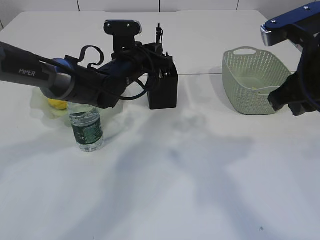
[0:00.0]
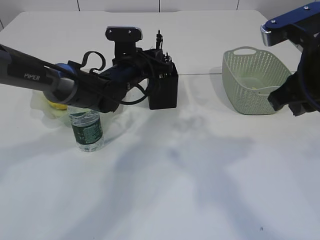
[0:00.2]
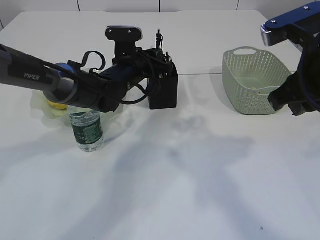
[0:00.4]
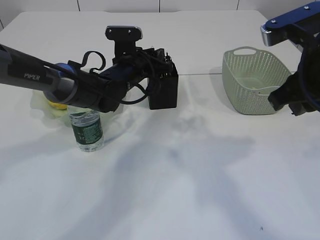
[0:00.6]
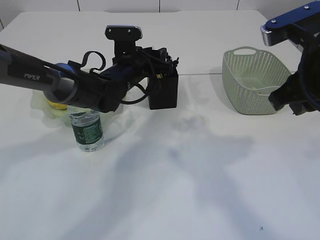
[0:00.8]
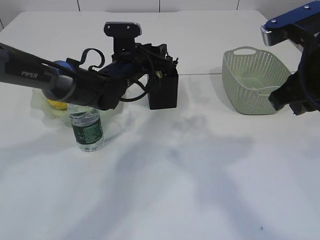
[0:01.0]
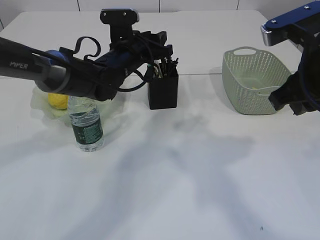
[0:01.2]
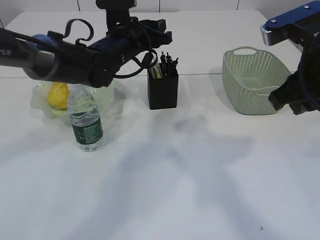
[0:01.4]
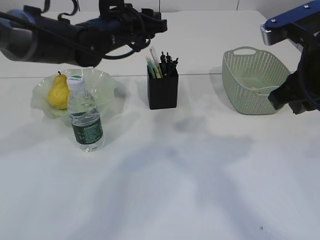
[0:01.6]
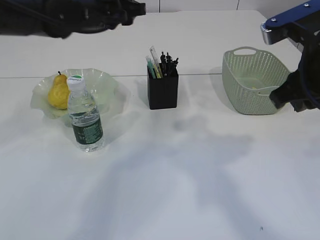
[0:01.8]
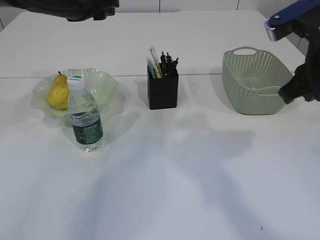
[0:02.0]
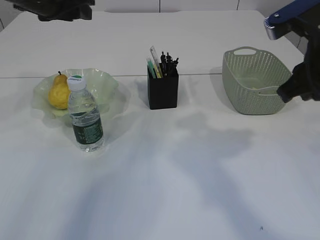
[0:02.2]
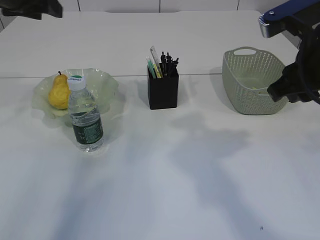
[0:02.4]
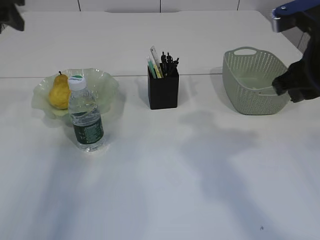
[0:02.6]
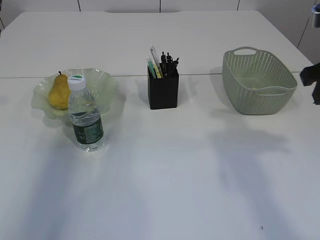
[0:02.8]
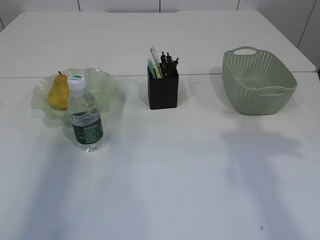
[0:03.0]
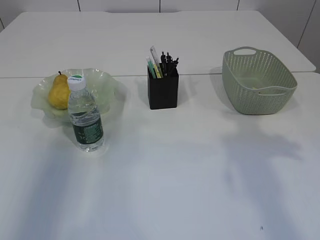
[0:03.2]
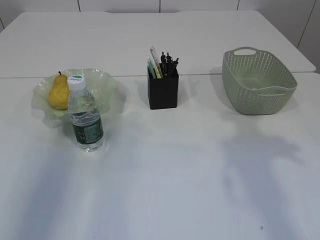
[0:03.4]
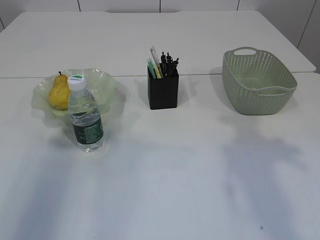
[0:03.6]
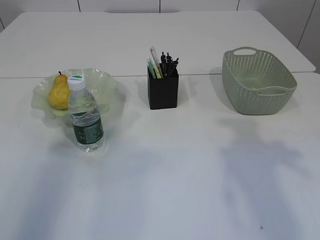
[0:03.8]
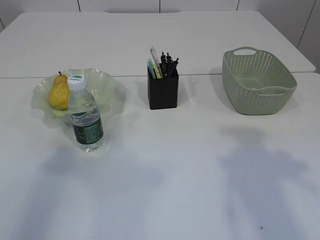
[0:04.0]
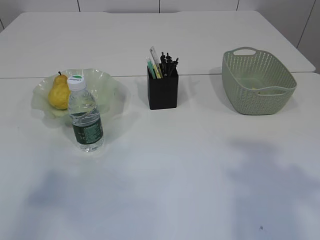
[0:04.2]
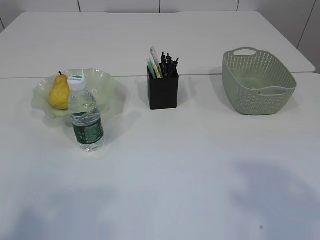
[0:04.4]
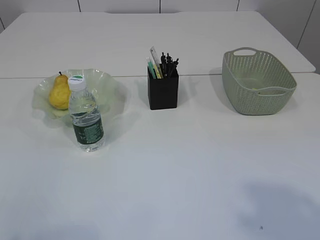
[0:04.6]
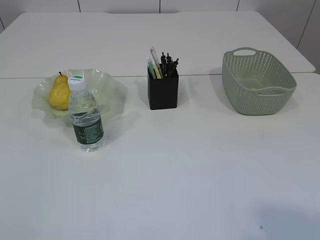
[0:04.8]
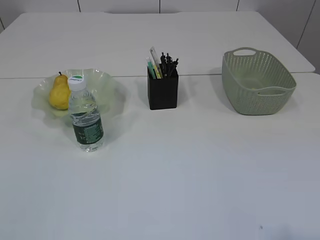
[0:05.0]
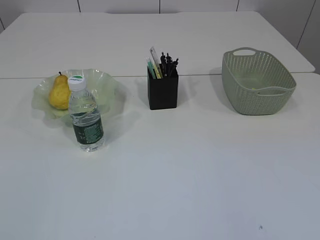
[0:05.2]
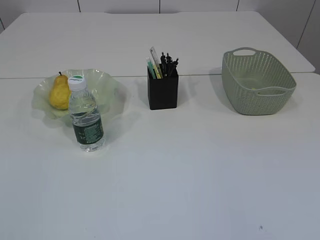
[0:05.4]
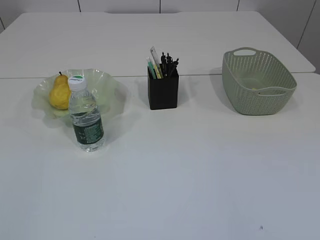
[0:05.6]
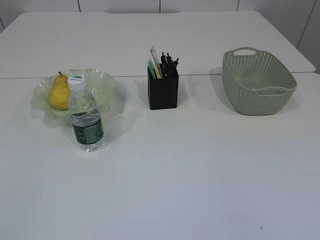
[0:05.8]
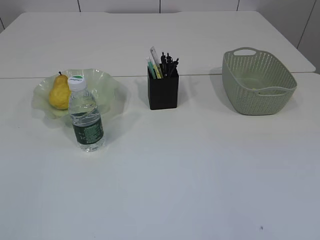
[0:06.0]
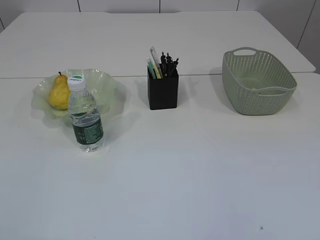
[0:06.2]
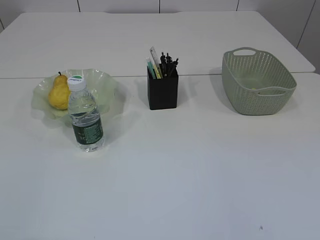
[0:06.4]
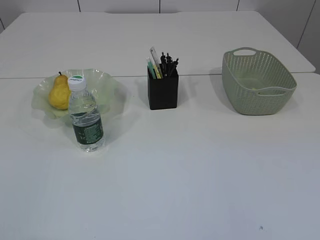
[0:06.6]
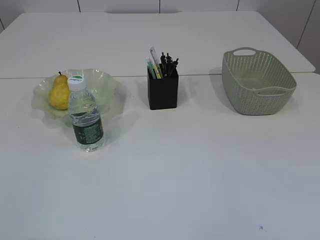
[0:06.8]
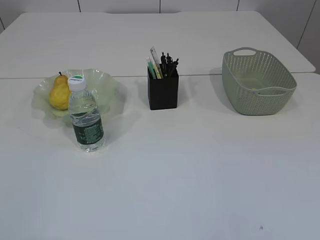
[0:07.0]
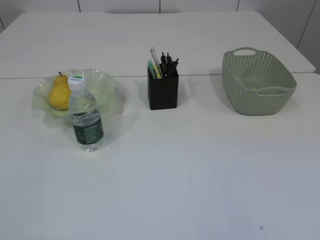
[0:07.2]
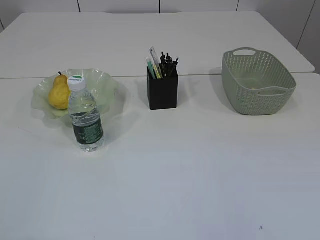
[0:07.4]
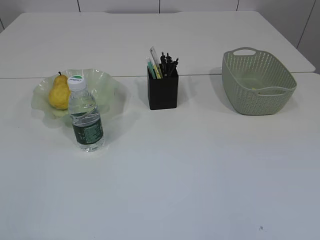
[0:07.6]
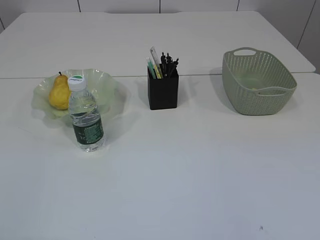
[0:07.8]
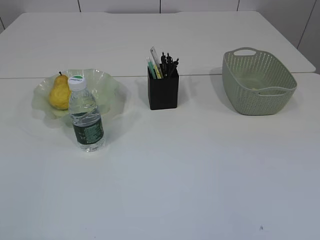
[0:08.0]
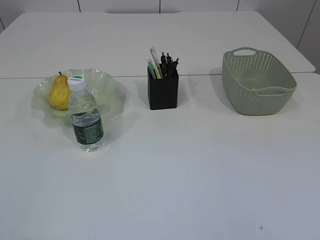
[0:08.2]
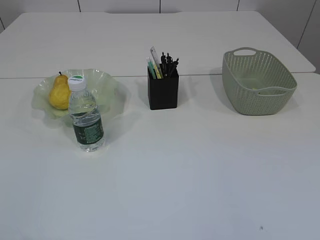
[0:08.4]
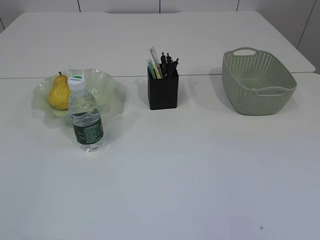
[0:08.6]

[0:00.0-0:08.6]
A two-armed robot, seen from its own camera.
0.0 to 1.4 s: The left gripper shifts some 5 cm upward, and opens up.
1.4 to 2.8 s: The left gripper goes about 30 cm to the left and upward; the right gripper is displaced to the right by roughly 5 cm.
2.8 to 4.4 s: The right gripper heads backward and upward, covering about 25 cm, and opens up, while the left gripper moves backward, about 35 cm.
4.4 to 5.8 s: The left gripper heads downward and backward, covering about 10 cm.
7.2 to 8.6 s: Neither gripper changes place.

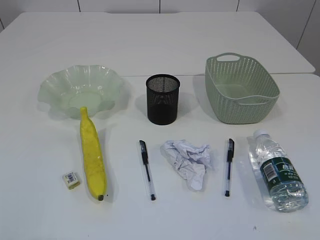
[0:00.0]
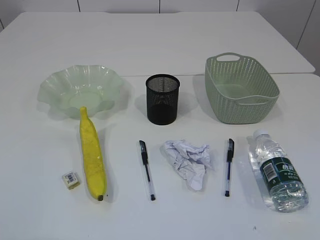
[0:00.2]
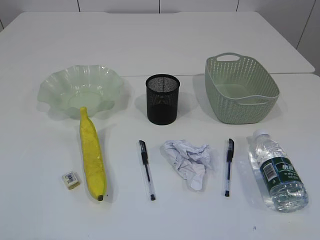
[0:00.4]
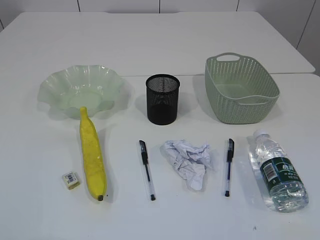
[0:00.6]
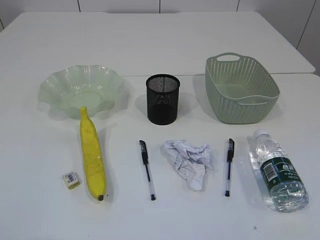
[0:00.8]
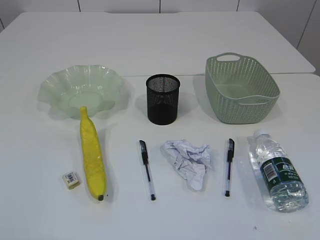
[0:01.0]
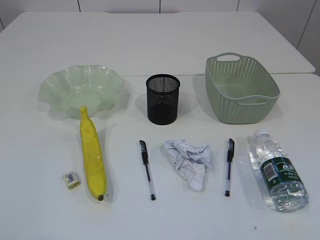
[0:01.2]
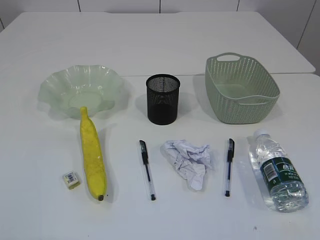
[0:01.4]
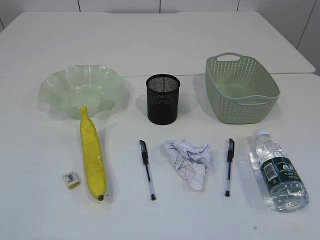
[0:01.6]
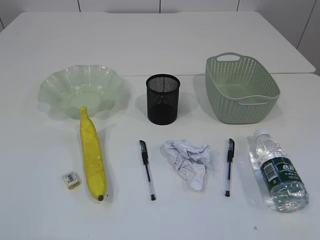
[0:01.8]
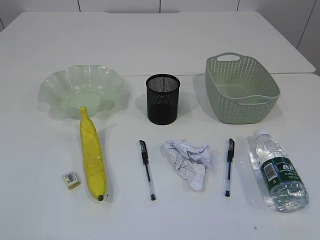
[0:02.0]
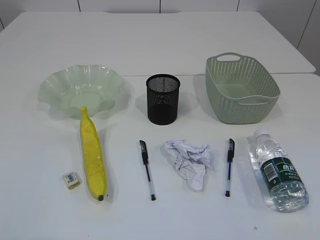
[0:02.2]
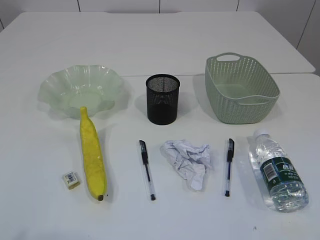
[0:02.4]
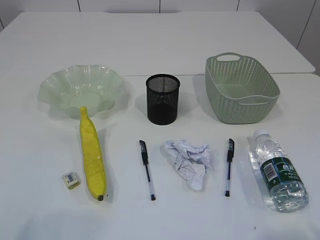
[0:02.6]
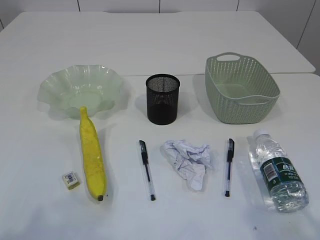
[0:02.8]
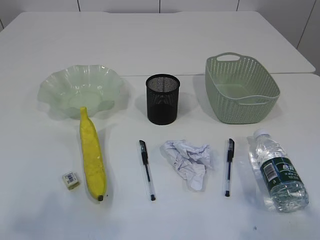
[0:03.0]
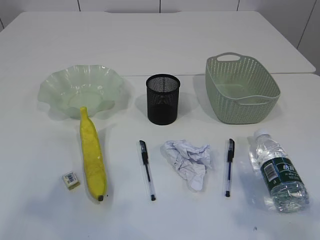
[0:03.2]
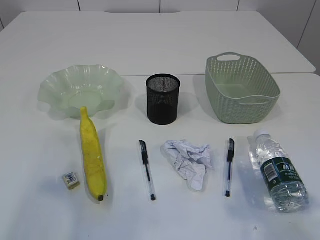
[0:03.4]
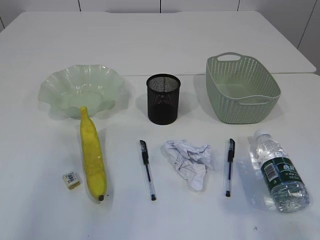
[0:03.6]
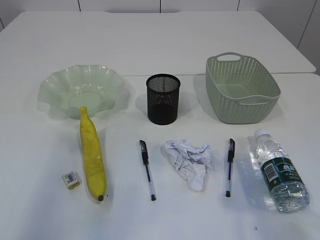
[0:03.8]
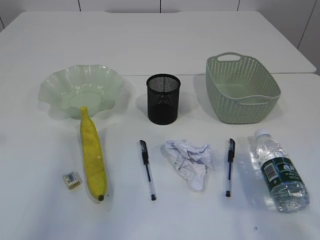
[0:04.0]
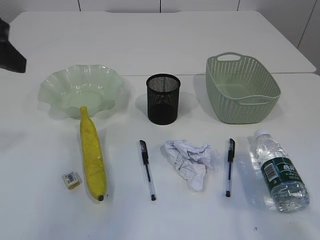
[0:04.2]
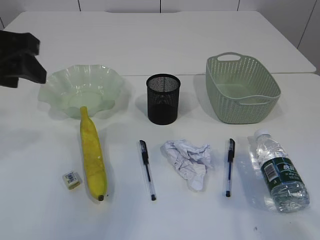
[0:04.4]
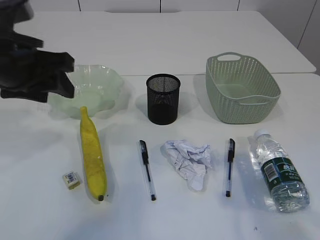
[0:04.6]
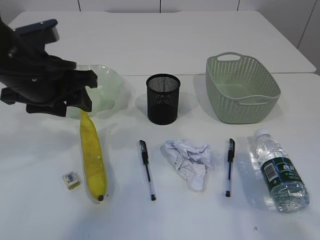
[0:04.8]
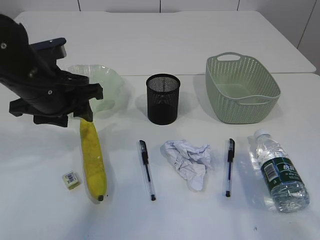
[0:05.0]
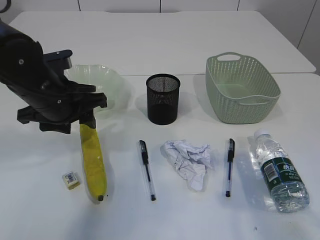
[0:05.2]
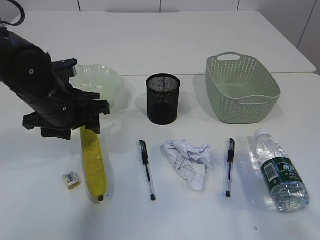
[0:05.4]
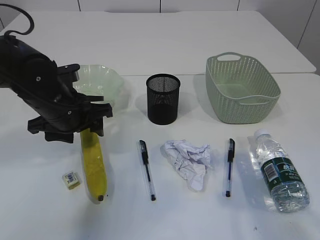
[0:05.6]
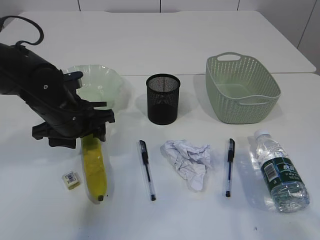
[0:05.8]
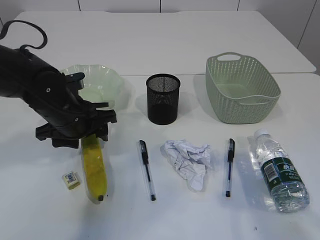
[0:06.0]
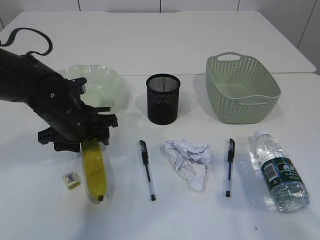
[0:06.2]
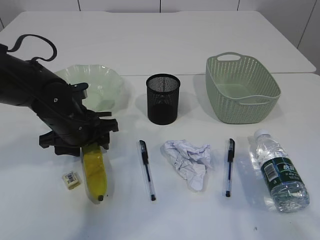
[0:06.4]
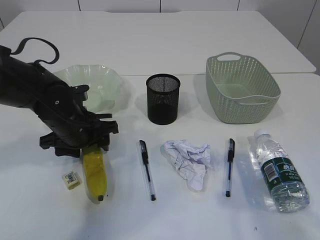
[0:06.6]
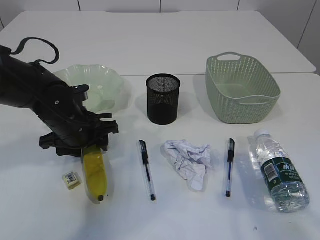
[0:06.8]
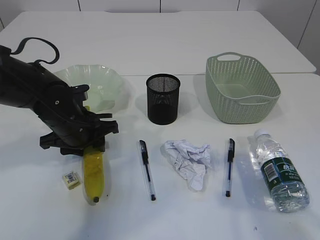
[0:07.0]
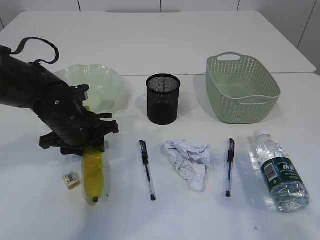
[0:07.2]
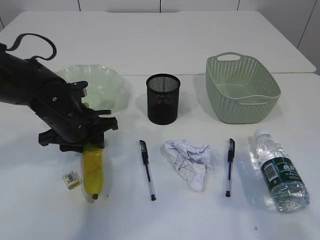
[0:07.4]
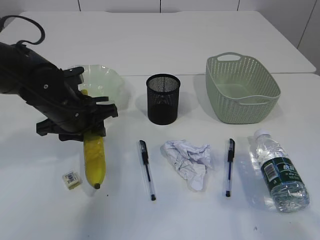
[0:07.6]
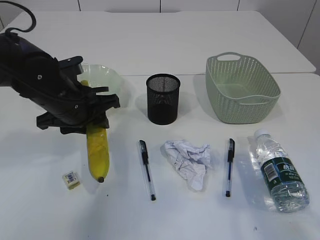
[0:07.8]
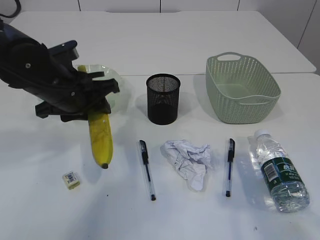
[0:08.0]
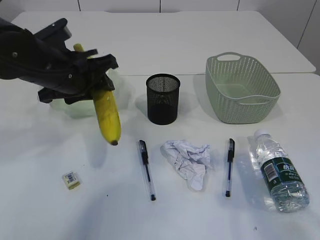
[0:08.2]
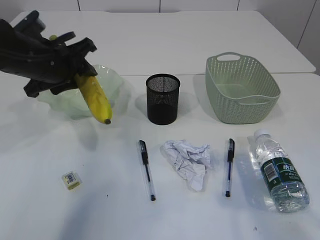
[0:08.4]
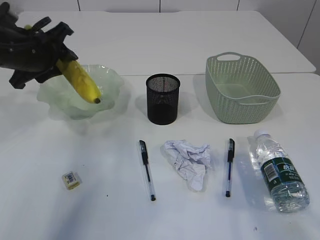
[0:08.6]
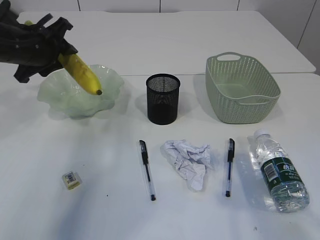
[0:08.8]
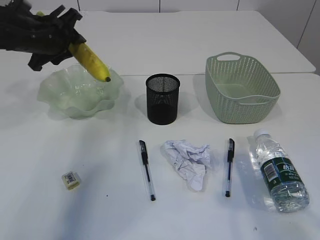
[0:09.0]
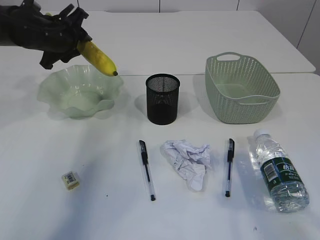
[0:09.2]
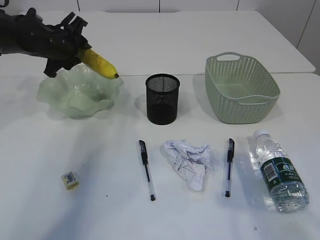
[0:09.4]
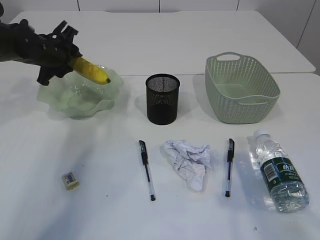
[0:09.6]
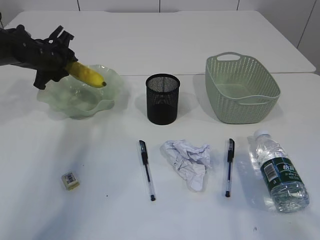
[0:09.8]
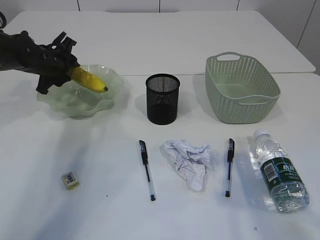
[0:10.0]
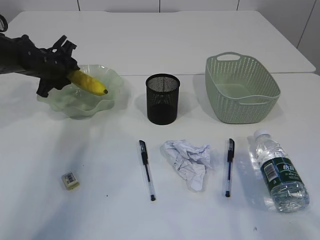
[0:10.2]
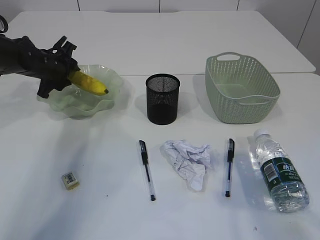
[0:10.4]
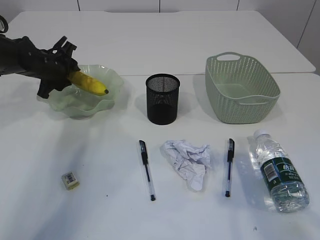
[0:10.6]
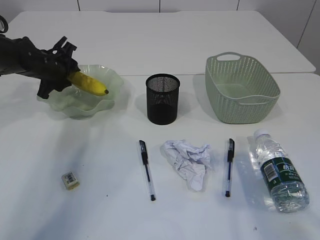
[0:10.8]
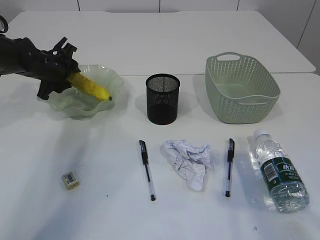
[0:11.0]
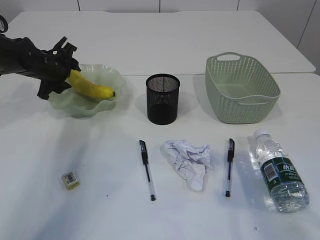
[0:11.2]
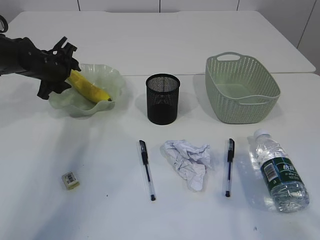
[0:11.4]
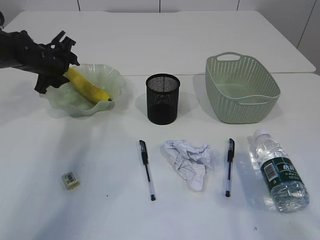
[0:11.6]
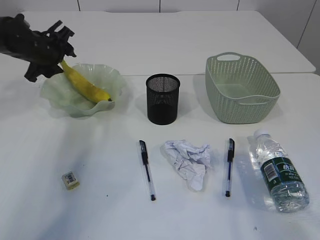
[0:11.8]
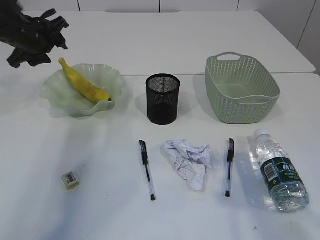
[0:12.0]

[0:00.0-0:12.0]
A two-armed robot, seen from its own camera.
Step, 8.0 to 11.8 s: Place the banana in the plate.
1.6 to 3.0 s: The left gripper goes roughly 10 cm forward and upward; the right gripper moves forward, approximately 10 cm.
3.0 to 4.4 s: The right gripper moves forward, some 5 cm. The left gripper goes approximately 25 cm forward and to the right.
4.4 to 6.0 s: The left gripper heads downward, forward and to the right, covering about 20 cm.
6.0 to 7.6 s: The left gripper closes.
7.6 to 9.0 s: The left gripper moves forward, upward and to the left, approximately 15 cm.
9.0 to 10.4 s: The left gripper goes roughly 10 cm downward and forward.
10.4 to 12.0 s: The left gripper shifts roughly 10 cm upward.

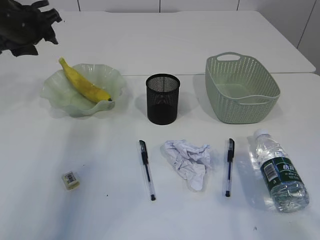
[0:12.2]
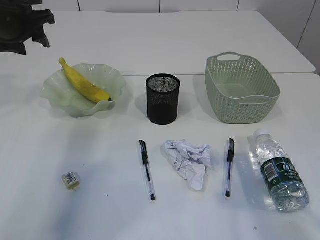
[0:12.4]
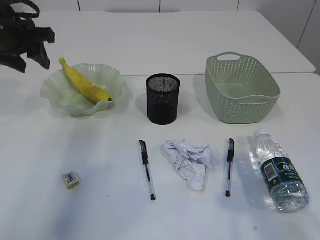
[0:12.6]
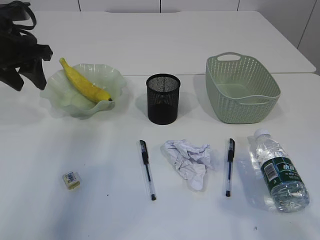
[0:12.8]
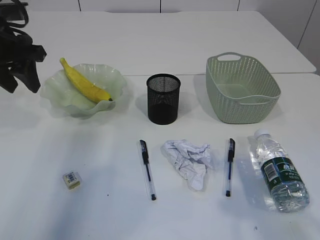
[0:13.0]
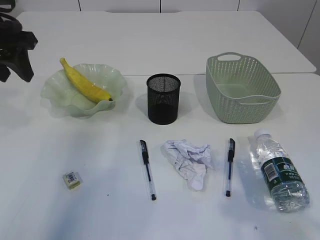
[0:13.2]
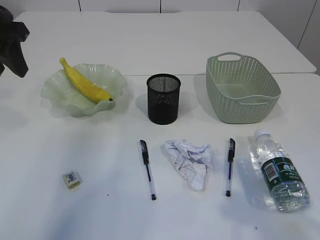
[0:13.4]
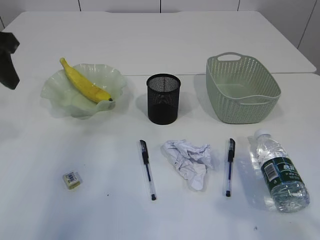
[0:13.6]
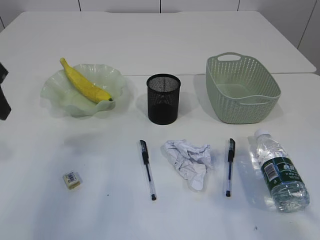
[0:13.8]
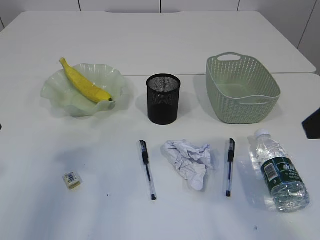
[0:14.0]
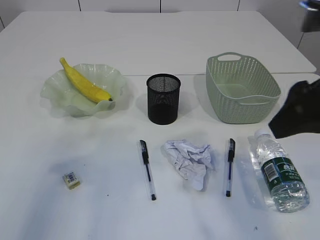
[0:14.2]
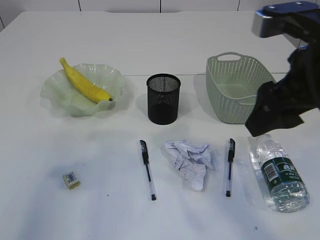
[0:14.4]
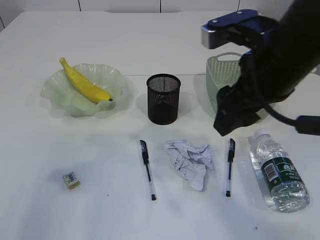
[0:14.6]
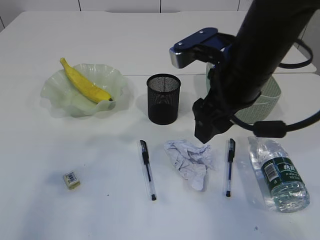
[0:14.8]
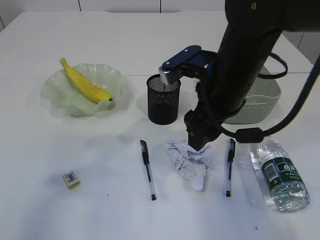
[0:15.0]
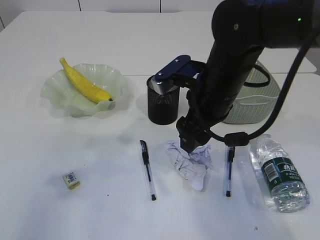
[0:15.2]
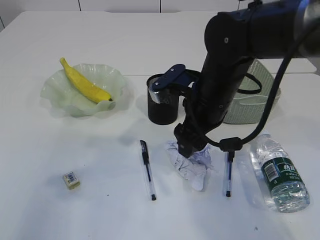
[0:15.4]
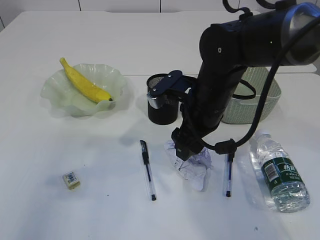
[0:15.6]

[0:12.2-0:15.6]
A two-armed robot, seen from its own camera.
12.2 to 13.8 s: The left gripper heads backward, covering approximately 15 cm.
13.8 to 15.6 s: The right gripper heads forward, to the left and downward, covering approximately 30 cm. Meanwhile the left gripper travels backward by roughly 10 cm.
